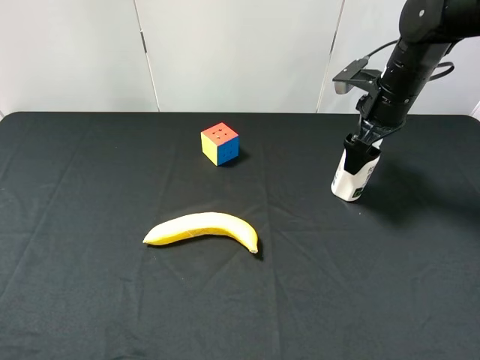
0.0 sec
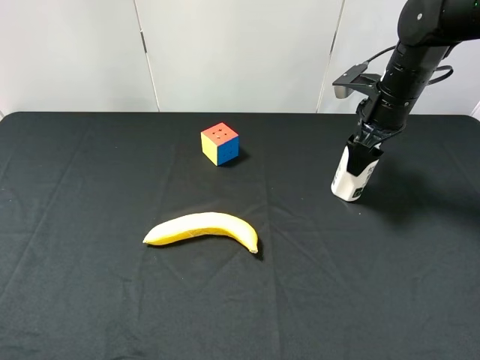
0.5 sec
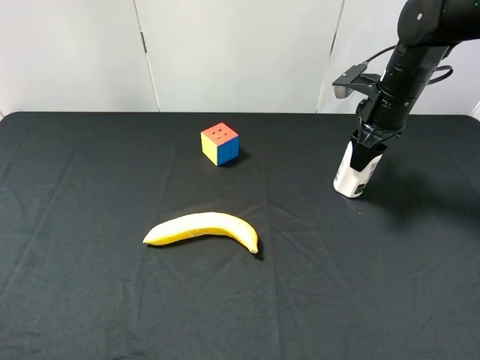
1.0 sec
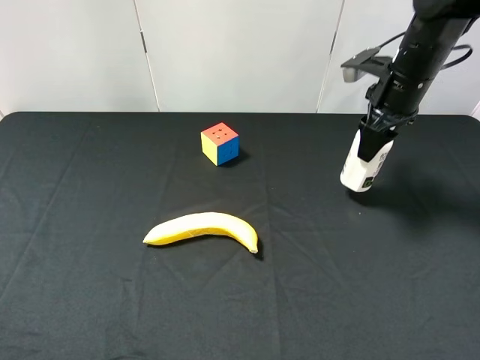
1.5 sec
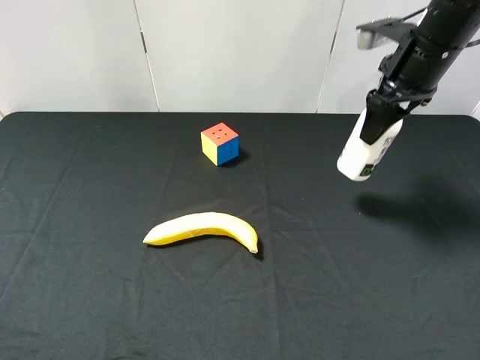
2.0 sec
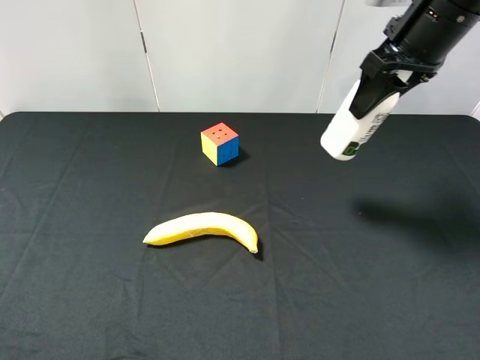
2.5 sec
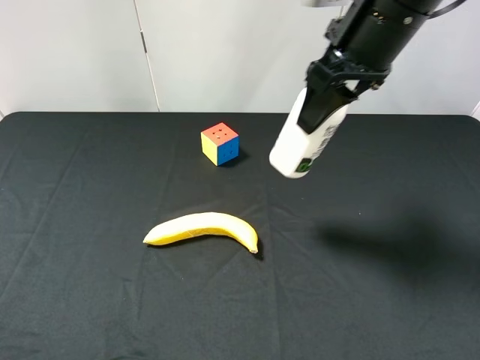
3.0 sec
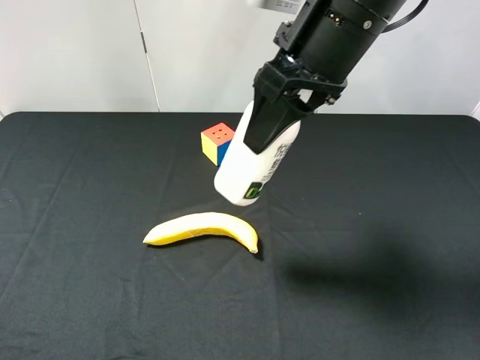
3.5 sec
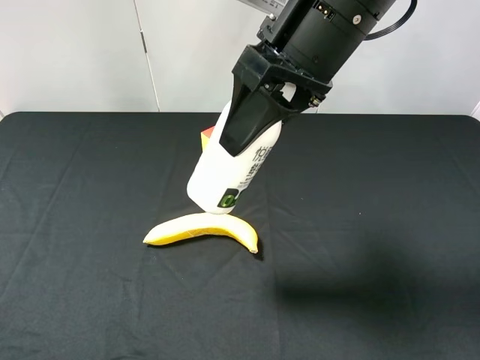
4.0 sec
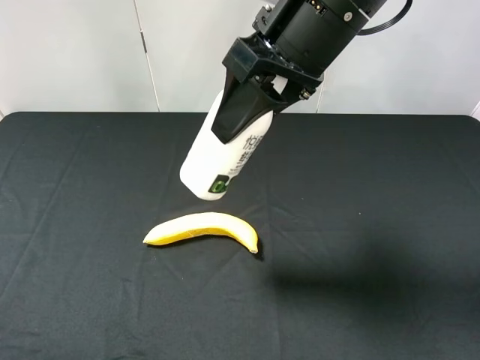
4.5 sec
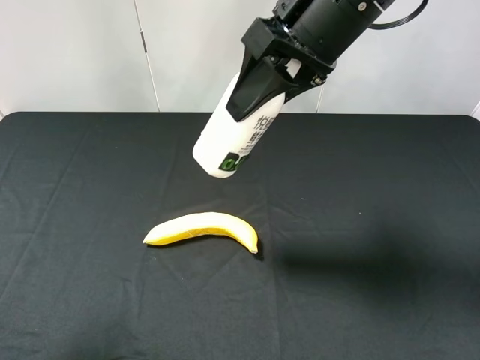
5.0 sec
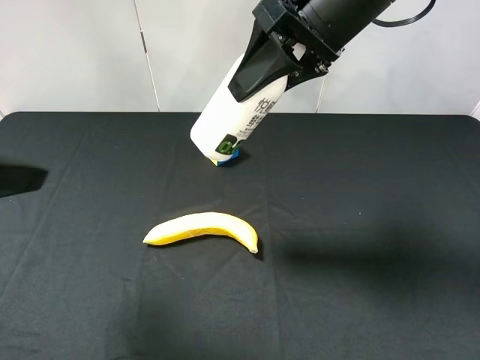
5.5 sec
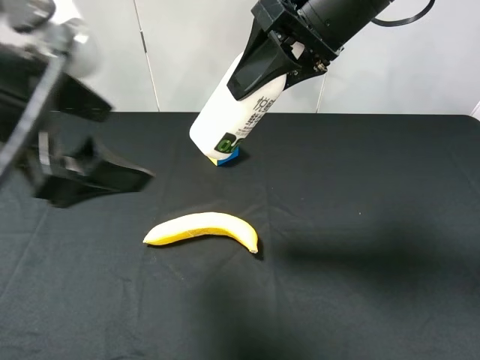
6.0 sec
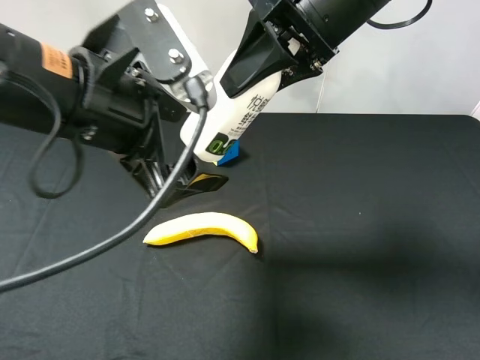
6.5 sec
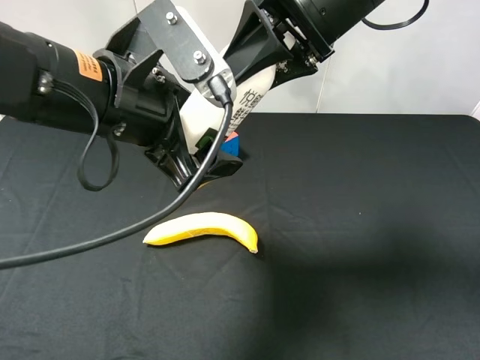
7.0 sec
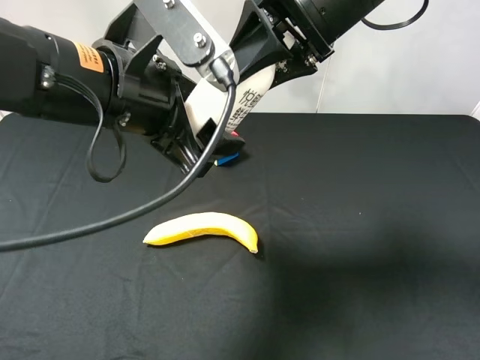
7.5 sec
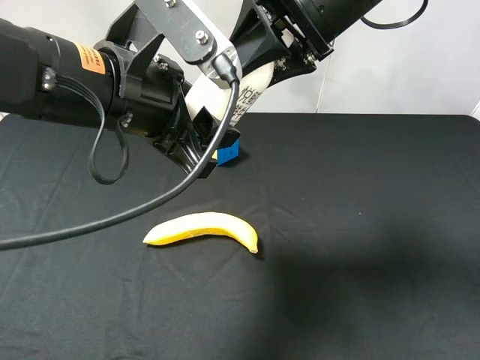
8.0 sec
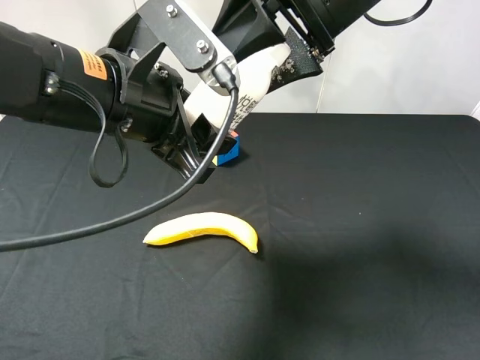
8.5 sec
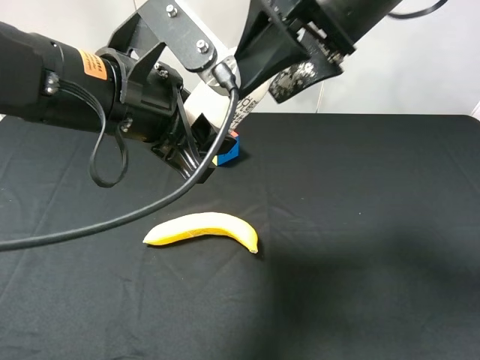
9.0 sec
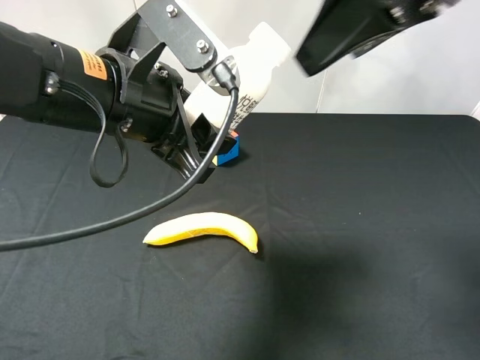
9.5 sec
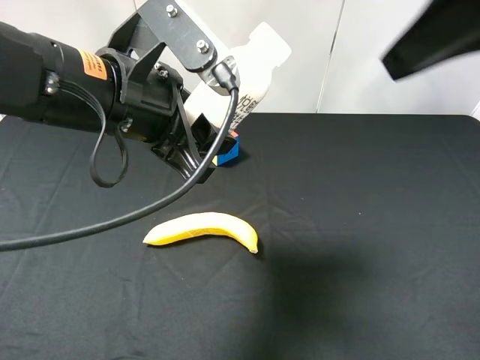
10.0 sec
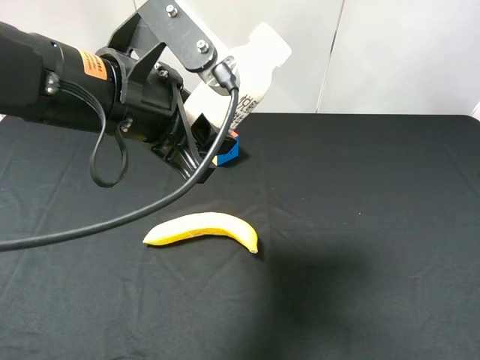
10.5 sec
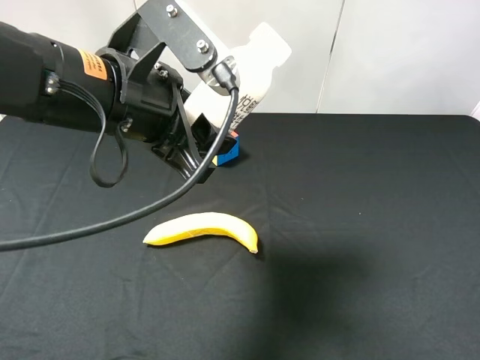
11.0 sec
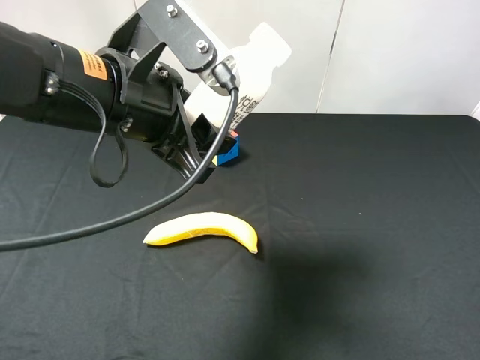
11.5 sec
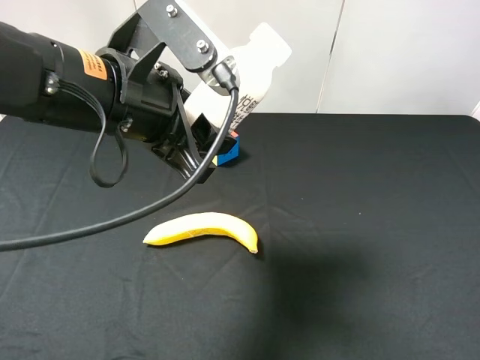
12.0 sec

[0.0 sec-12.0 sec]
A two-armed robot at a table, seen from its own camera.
Task of the whole recording: use the right gripper to pick up the item and transfer it from the right gripper to the left gripper.
Step, 1.0 sec to 8.0 sec: Pass the milk to the left gripper.
0.0 sec to 2.0 sec: The right gripper is displaced upward by roughly 10 cm, and closes.
2.0 sec to 4.0 sec: The right gripper shifts about 20 cm to the left and backward.
4.0 sec to 6.0 sec: The left gripper travels forward and to the right by roughly 20 cm.
6.0 sec to 8.0 sec: The left gripper shifts roughly 5 cm to the right, and closes its fingers.
8.0 sec to 10.0 sec: The right gripper moves to the right, backward and upward, roughly 15 cm, and opens up.
10.0 sec to 12.0 sec: The right gripper is displaced backward, downward and to the right by about 25 cm.

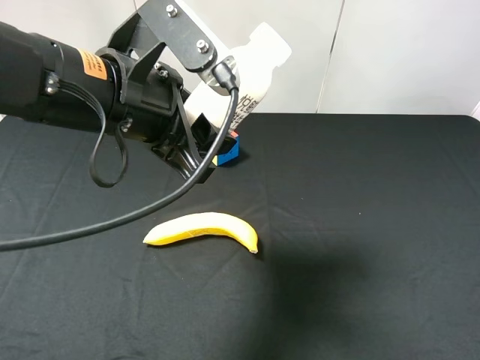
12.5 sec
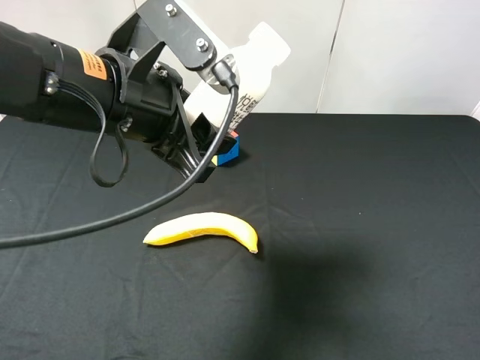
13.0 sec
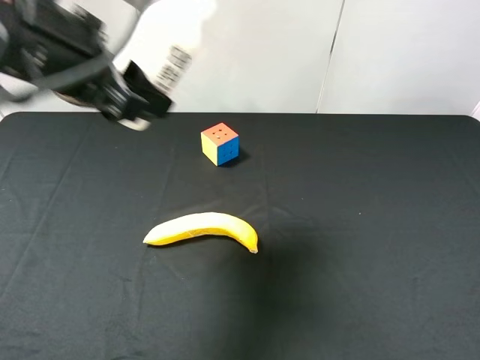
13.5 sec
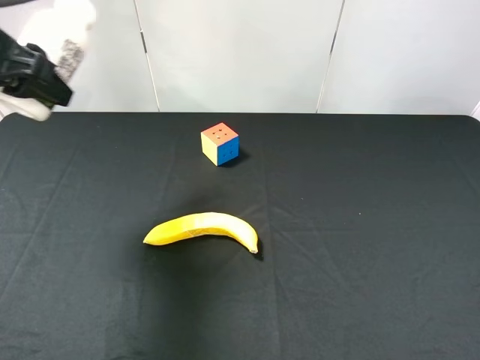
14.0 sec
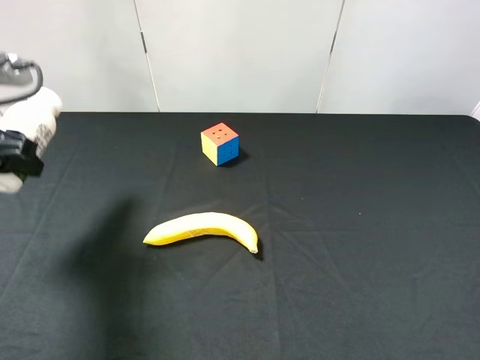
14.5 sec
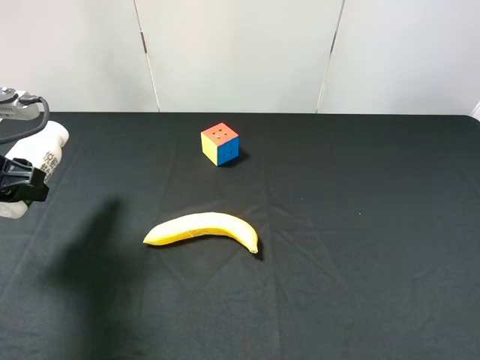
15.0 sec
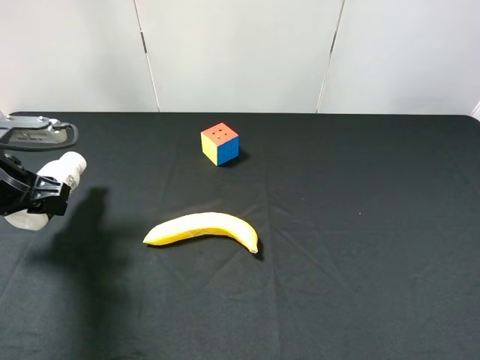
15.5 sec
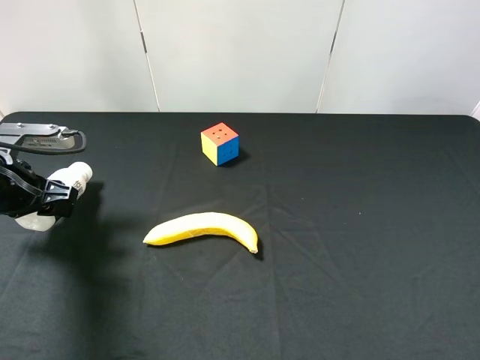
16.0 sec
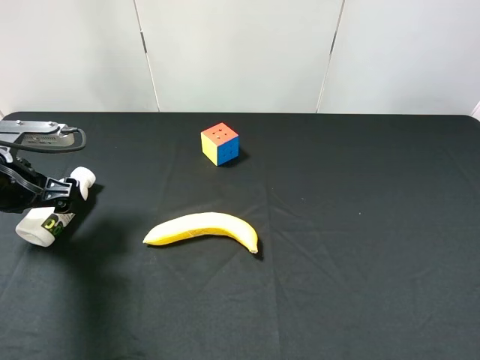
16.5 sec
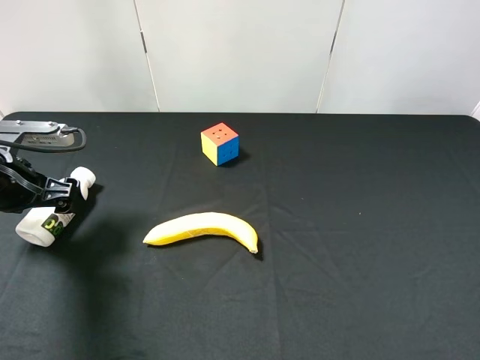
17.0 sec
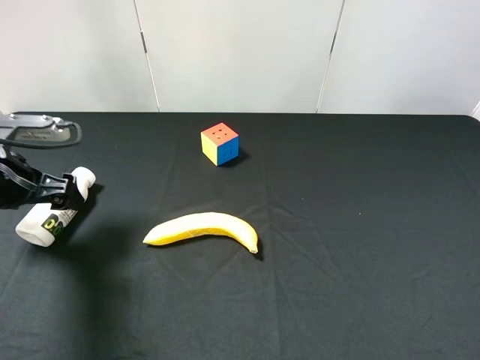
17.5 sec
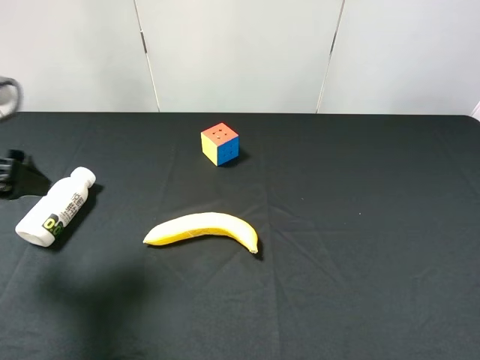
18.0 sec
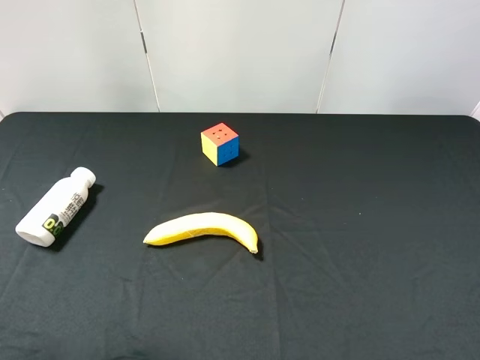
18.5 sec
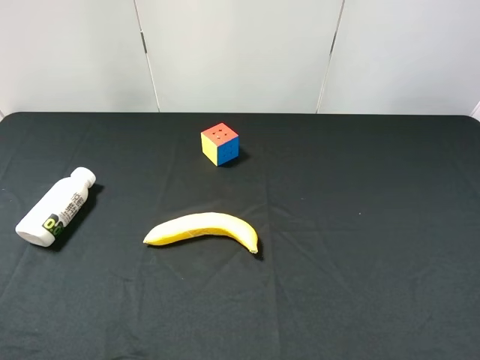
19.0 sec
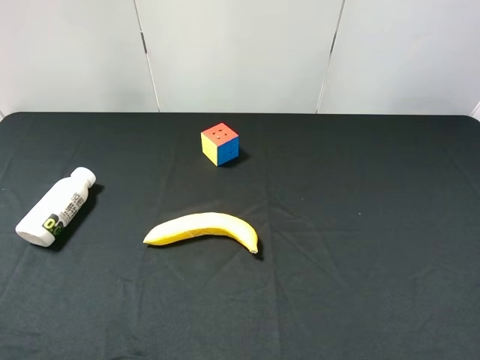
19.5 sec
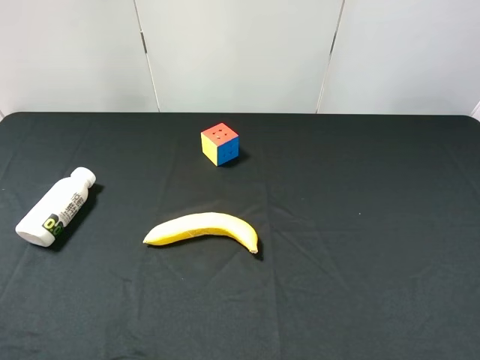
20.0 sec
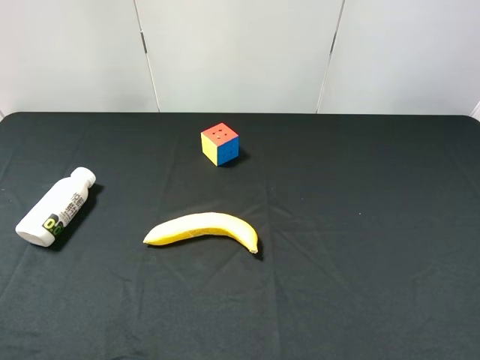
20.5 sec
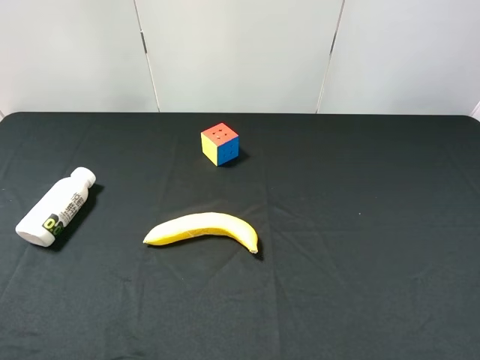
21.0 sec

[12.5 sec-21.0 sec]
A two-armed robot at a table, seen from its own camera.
Task of the whole recording: use the right gripper to pick up the item and transfer it from the right gripper to the left gripper.
Step, 12.5 sec to 16.5 sec: The left gripper places milk on the left side of the table.
12.5 sec to 14.5 sec: The left gripper travels to the left by about 20 cm.
14.5 sec to 16.5 sec: The left gripper goes some 10 cm downward, and opens up.
16.5 sec to 19.0 sec: The left gripper moves backward and upward, some 30 cm.
